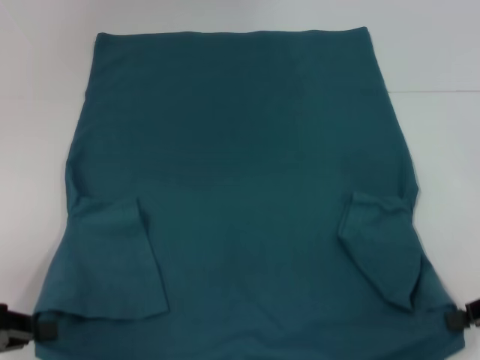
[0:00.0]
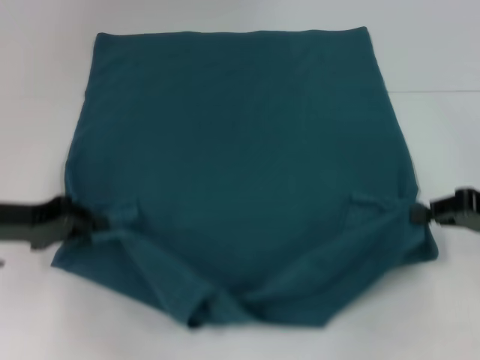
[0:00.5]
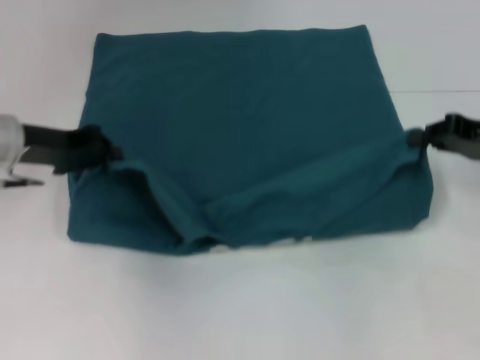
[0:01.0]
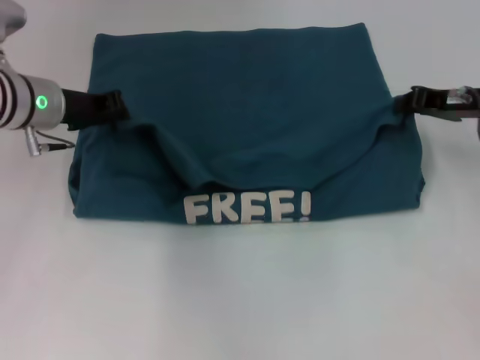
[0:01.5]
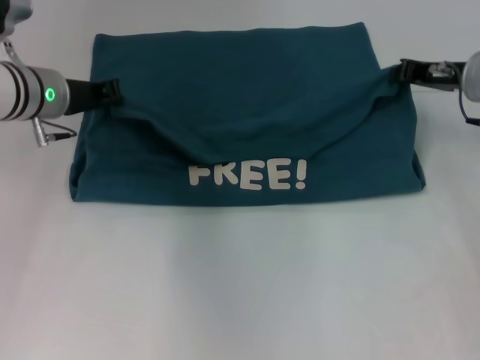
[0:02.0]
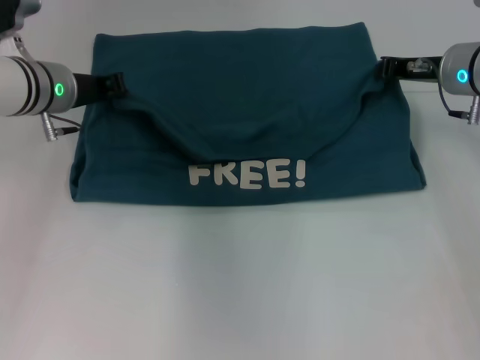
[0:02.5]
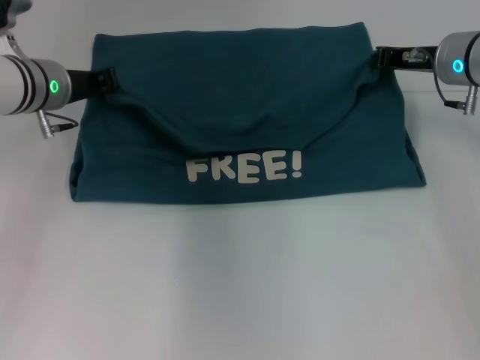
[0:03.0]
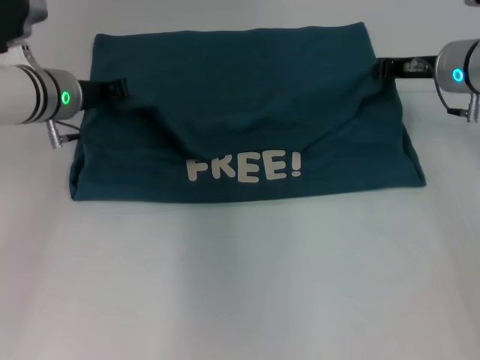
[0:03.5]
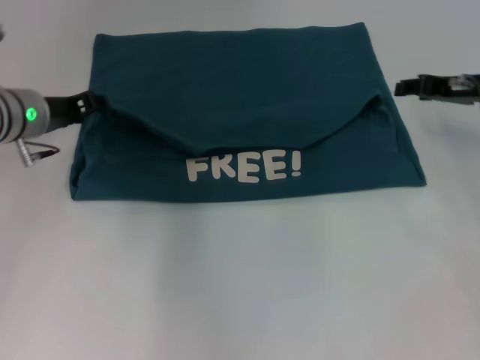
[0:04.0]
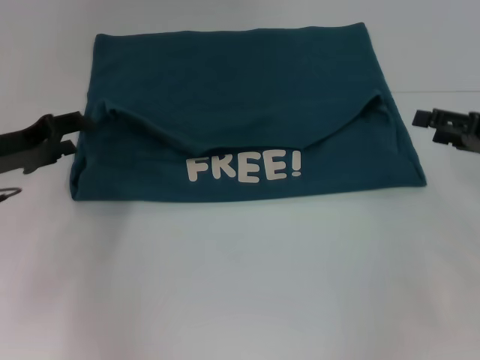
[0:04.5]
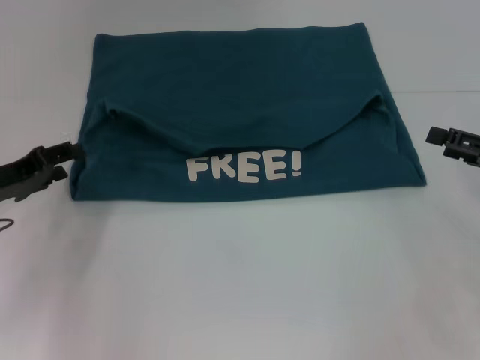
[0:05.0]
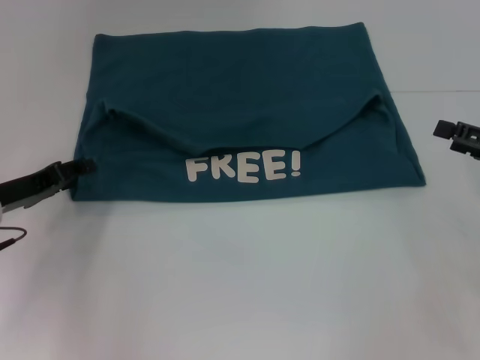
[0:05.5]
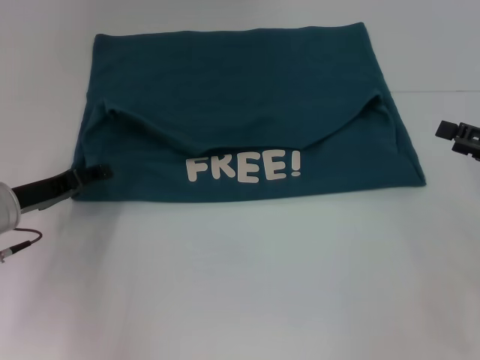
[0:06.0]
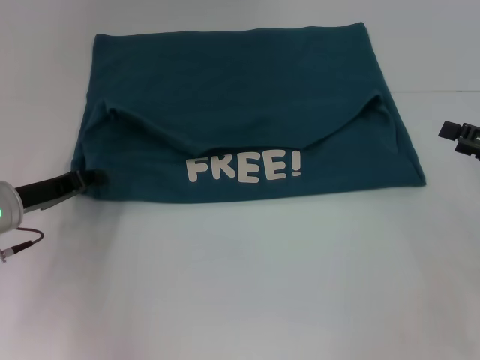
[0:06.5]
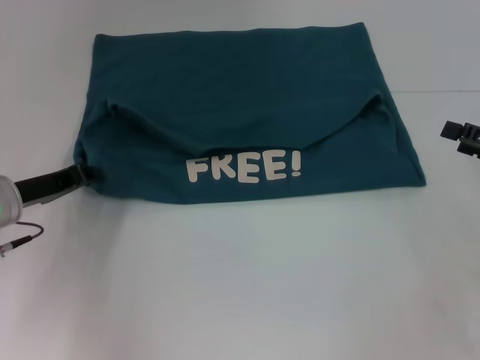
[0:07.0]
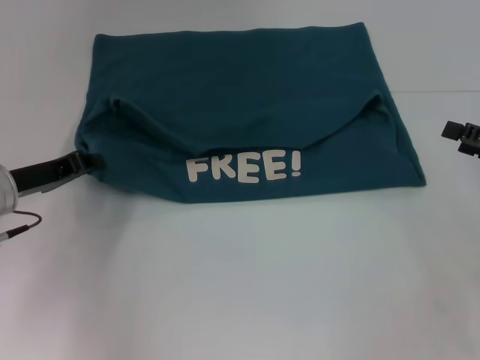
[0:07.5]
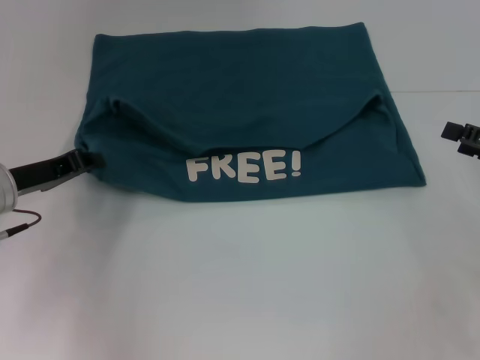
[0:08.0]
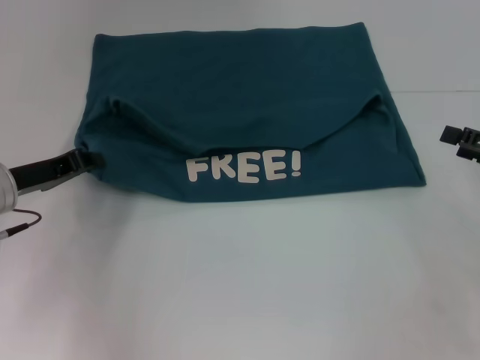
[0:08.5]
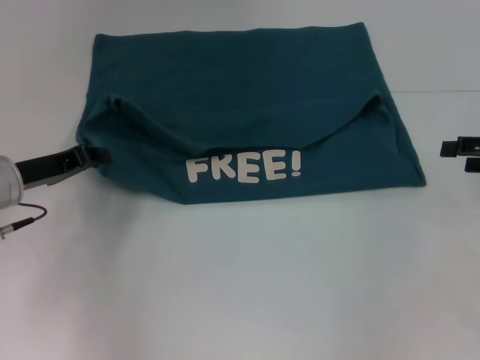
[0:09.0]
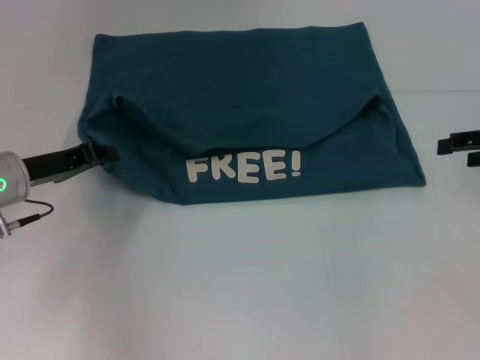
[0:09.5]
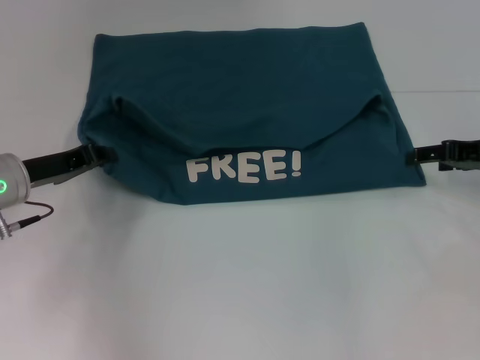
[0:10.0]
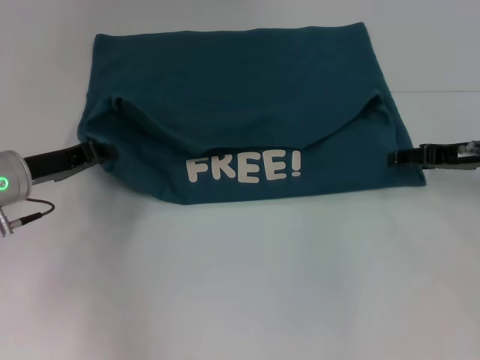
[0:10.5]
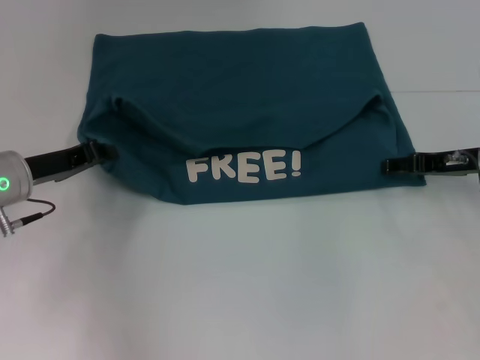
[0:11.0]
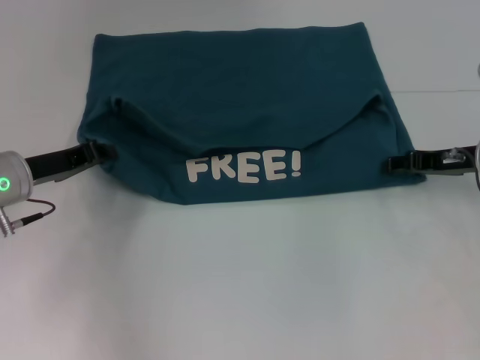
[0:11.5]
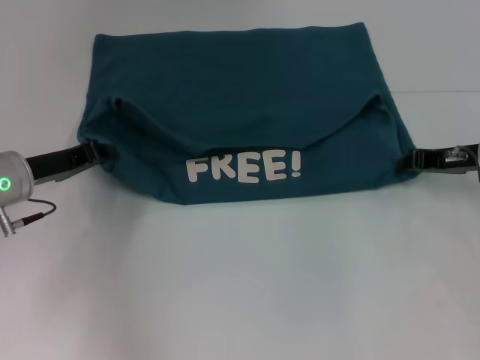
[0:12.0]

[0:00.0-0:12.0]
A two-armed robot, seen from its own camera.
Step, 0:00.0 to 0:03.5: Fold the clothes to the left.
Step, 0:00.0 to 0:03.5: Fold the clothes to the right.
0:00.0 to 0:02.0: The left gripper is displaced forward and to the right by some 25 cm. The right gripper goes about 20 cm forward and to the left.
0:02.0 to 0:04.0: The grippers stay close to where they were, moving slightly.
0:04.0 to 0:06.0: The left gripper travels backward and downward by roughly 10 cm. Meanwhile the right gripper heads backward and to the right, covering about 15 cm, and opens.
0:06.0 to 0:08.0: The left gripper closes.
0:08.0 to 0:10.0: The right gripper moves forward, about 5 cm.
0:10.0 to 0:12.0: The right gripper closes.

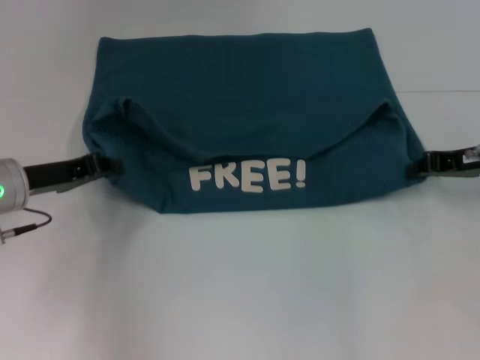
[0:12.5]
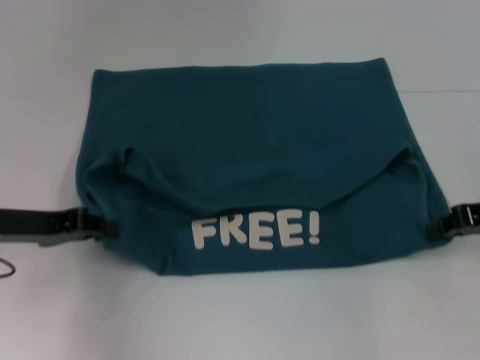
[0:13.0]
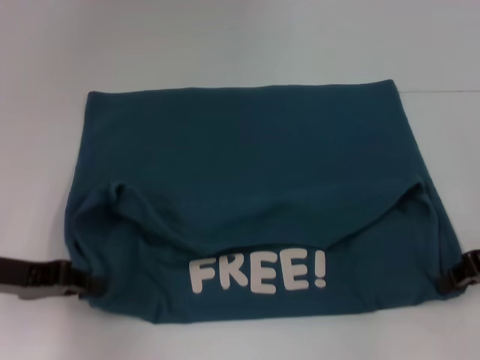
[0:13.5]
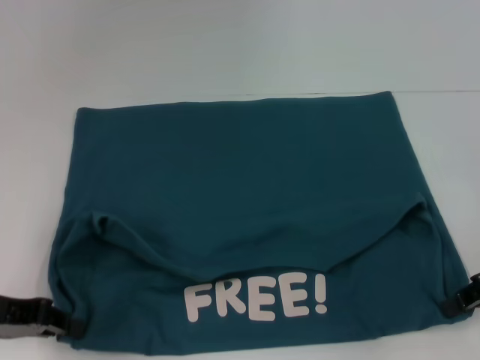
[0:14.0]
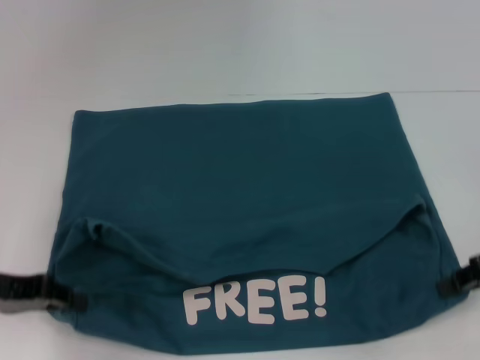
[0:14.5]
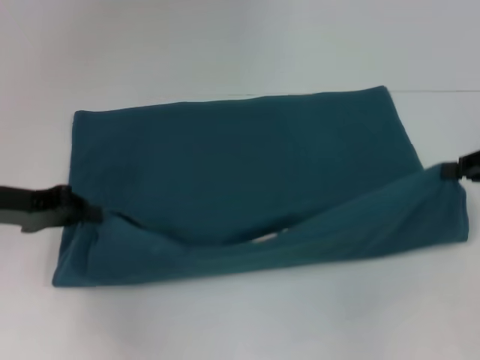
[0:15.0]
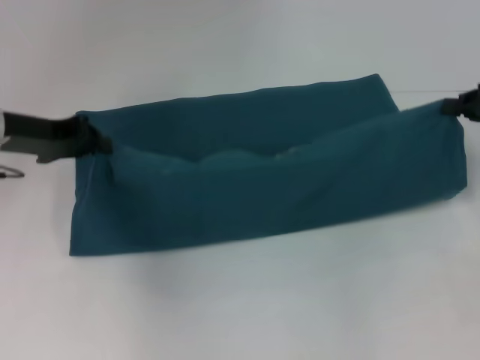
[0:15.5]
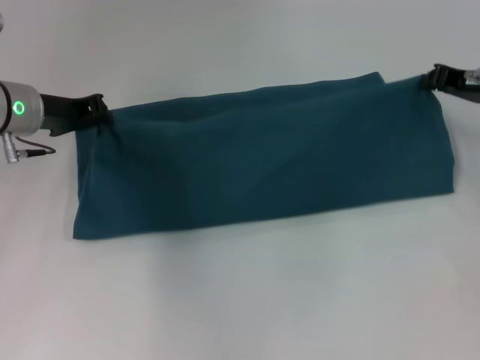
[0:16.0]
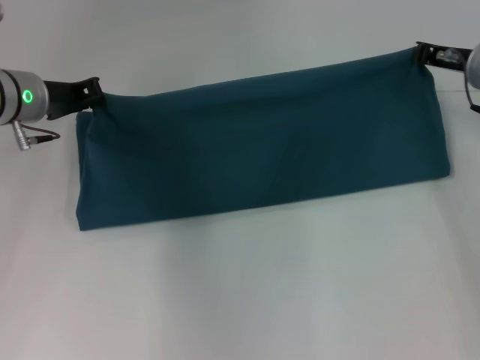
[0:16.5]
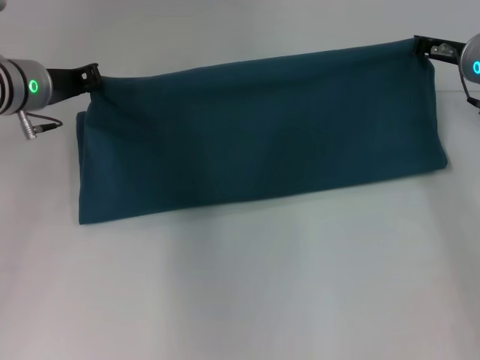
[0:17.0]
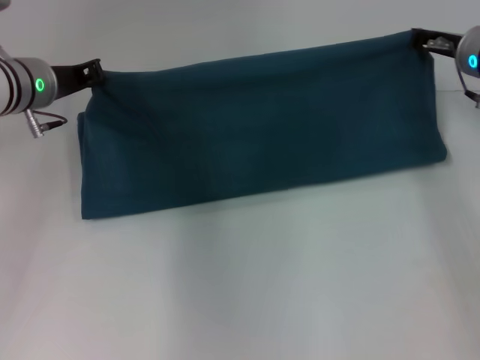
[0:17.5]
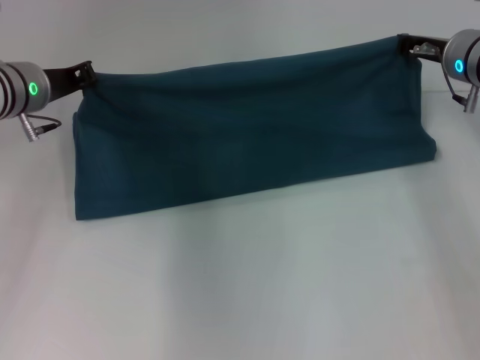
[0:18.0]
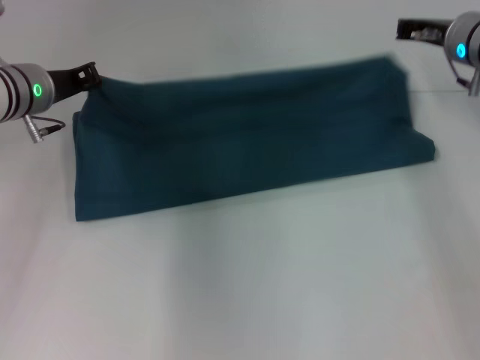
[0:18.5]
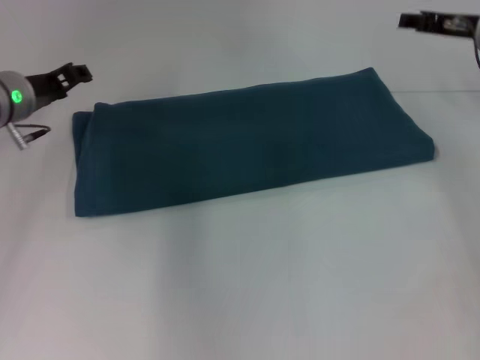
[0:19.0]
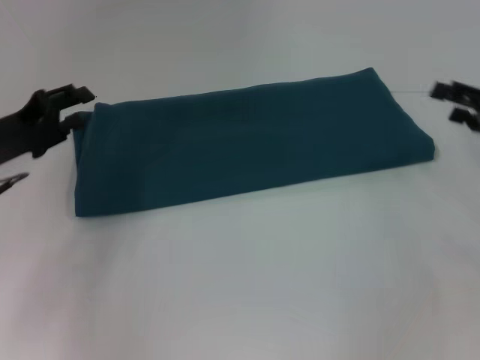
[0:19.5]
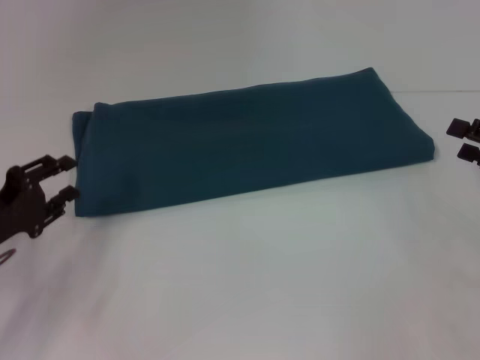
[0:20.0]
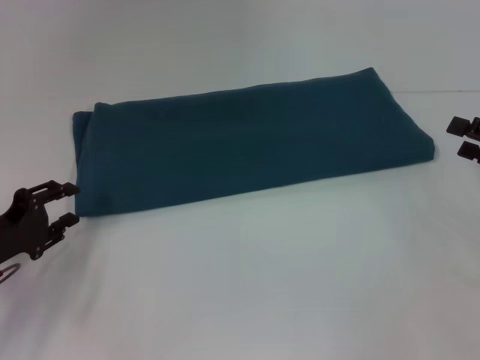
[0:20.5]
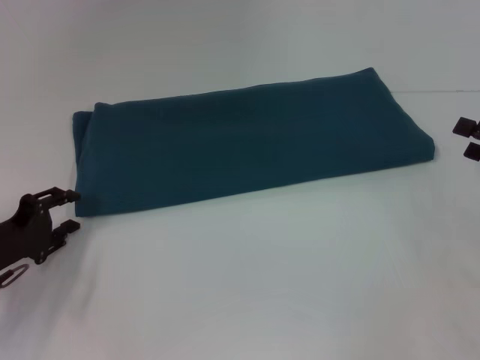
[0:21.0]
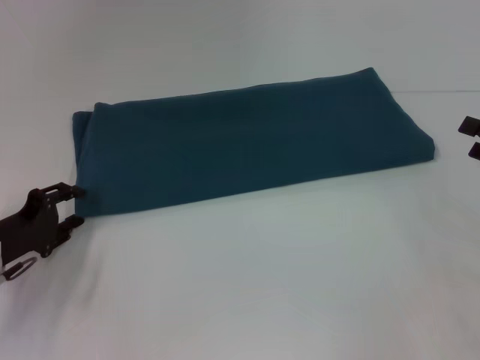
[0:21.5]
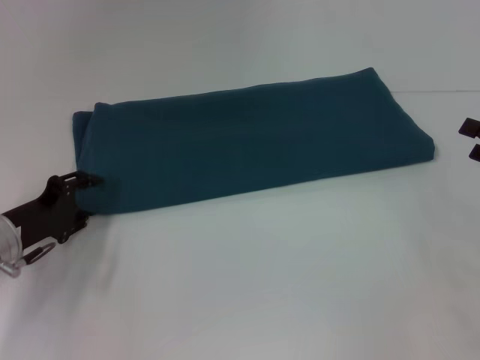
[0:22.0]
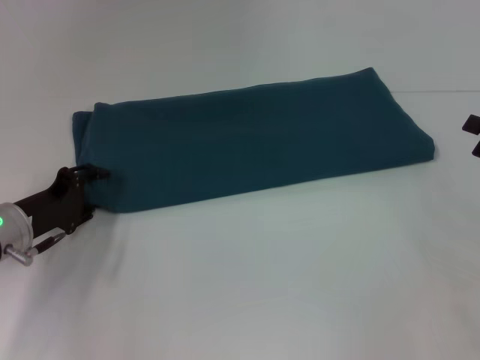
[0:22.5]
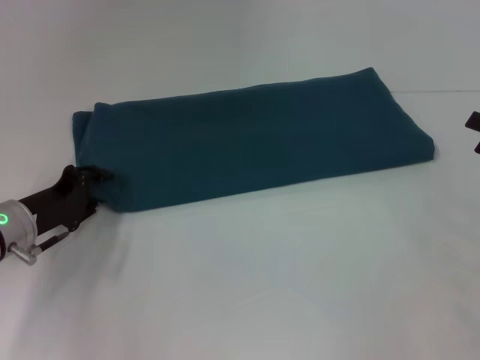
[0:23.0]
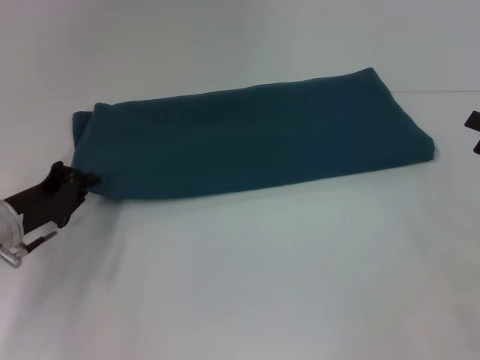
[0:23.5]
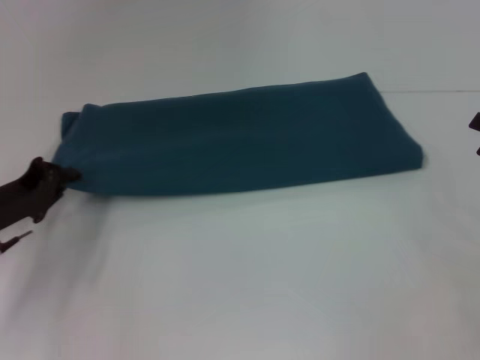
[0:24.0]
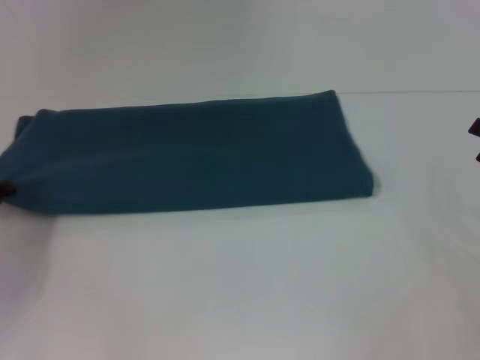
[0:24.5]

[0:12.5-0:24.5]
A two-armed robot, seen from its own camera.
Step, 0:14.5 to 0:18.5: Fold the clothes to the right.
0:12.5 to 0:14.5: Both grippers move backward, some 10 cm.
0:14.5 to 0:16.5: The right gripper moves forward and to the left, approximately 15 cm. Meanwhile the left gripper goes roughly 20 cm forward and to the right.
0:16.5 to 0:18.5: There are only small adjustments of the grippers.
0:18.5 to 0:20.5: The right gripper is displaced backward and to the right by approximately 20 cm, and opens its fingers; the left gripper moves backward, downward and to the left, some 20 cm, and opens its fingers.
0:20.5 to 0:22.5: The left gripper goes some 5 cm forward.
0:22.5 to 0:24.5: The left gripper travels to the left by about 10 cm, and closes its fingers.

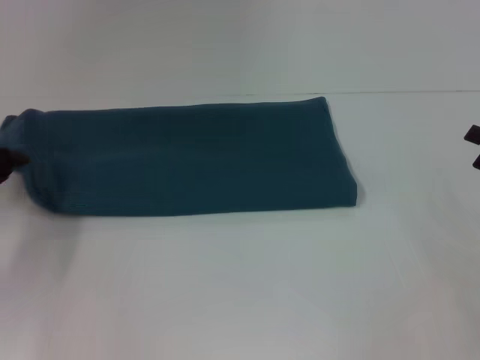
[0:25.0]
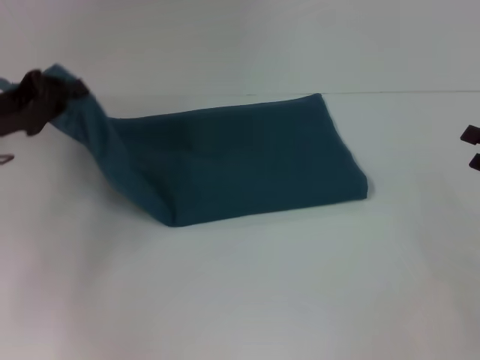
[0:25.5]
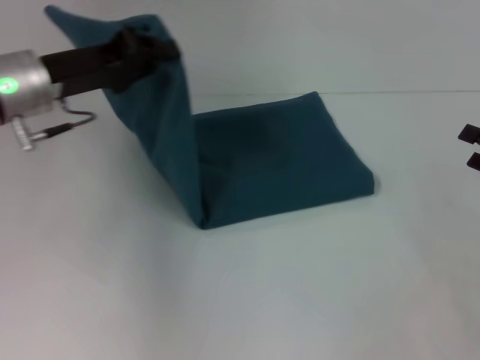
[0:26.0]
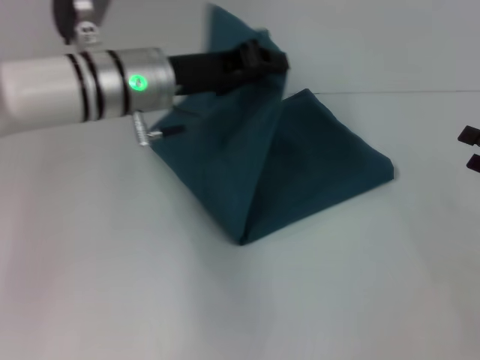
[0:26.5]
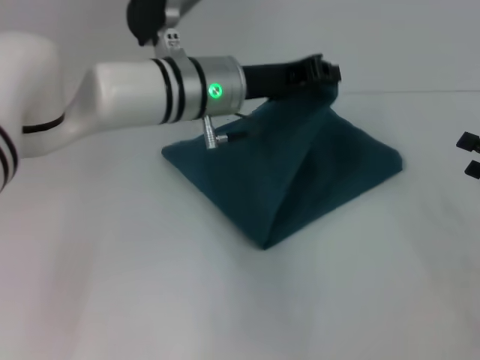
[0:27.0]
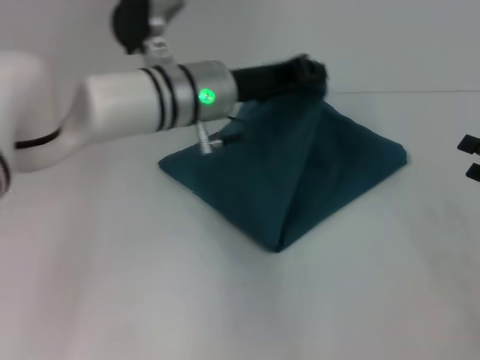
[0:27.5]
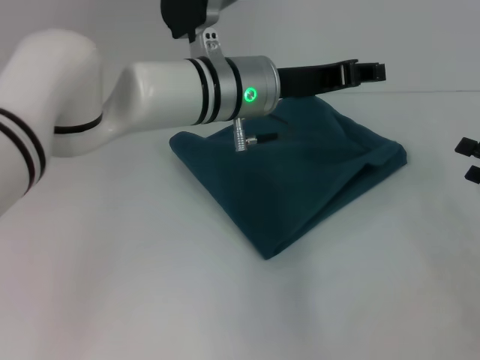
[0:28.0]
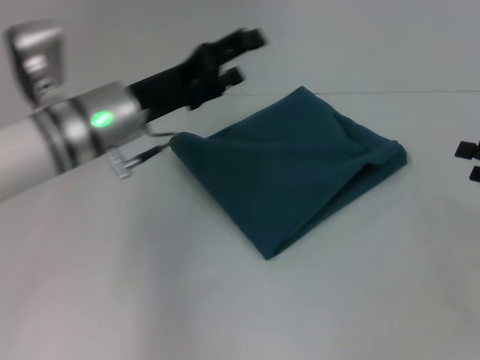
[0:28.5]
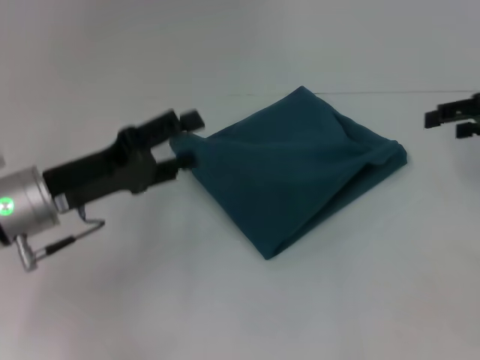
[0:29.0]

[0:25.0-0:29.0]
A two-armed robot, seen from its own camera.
Step, 0:25.0 to 0:28.0: Fold the clothes to the left.
0:25.0 to 0:27.0: The left gripper goes about 30 cm to the right.
0:27.0 to 0:29.0: The right gripper heads upward and forward, covering approximately 15 cm. Meanwhile the left gripper heads to the left and backward, covering some 20 cm, and opens.
